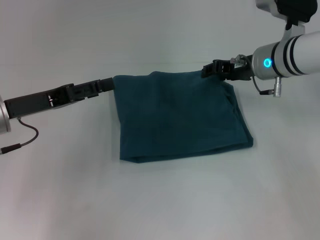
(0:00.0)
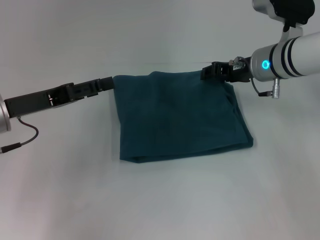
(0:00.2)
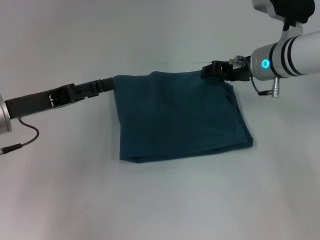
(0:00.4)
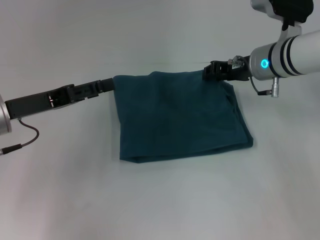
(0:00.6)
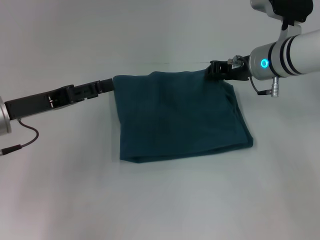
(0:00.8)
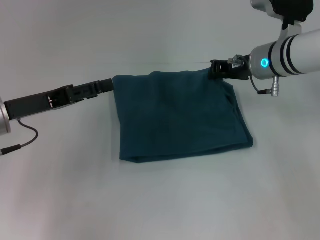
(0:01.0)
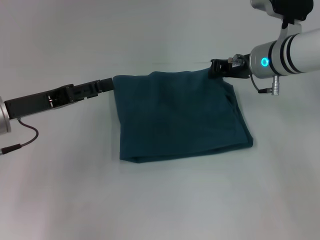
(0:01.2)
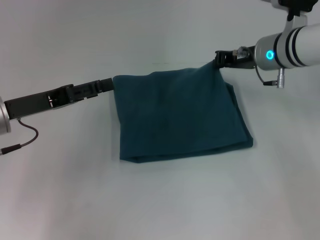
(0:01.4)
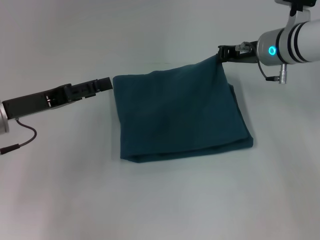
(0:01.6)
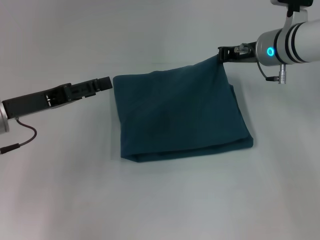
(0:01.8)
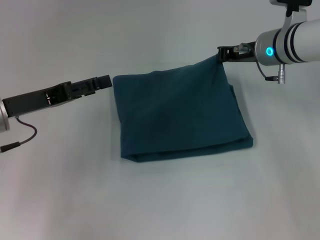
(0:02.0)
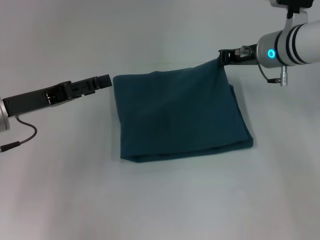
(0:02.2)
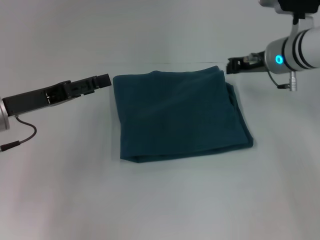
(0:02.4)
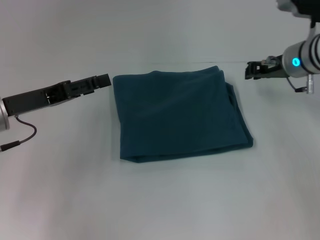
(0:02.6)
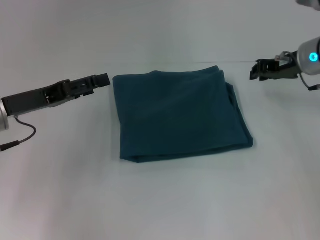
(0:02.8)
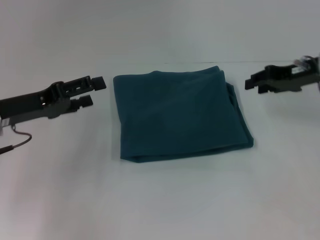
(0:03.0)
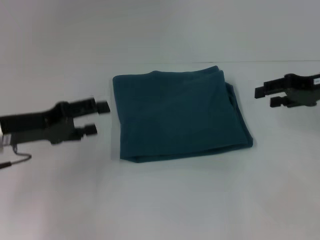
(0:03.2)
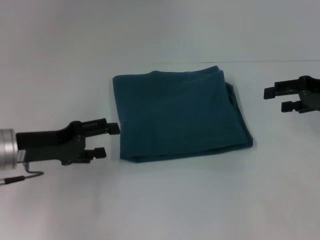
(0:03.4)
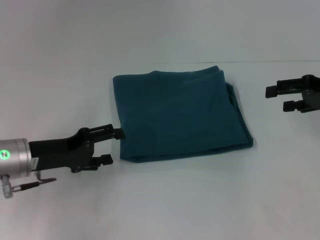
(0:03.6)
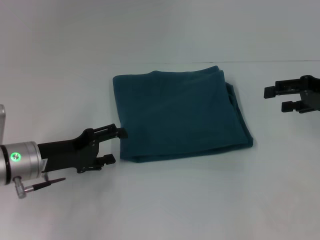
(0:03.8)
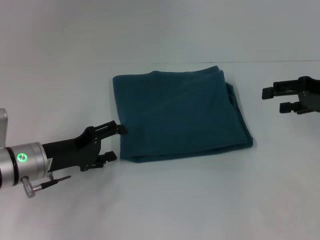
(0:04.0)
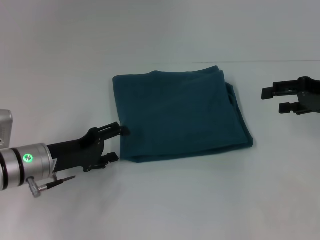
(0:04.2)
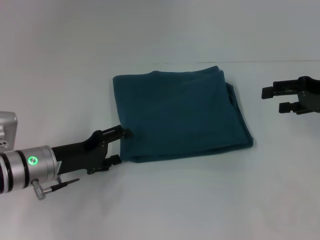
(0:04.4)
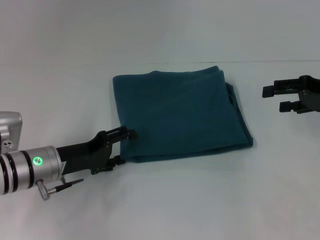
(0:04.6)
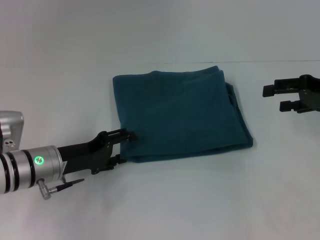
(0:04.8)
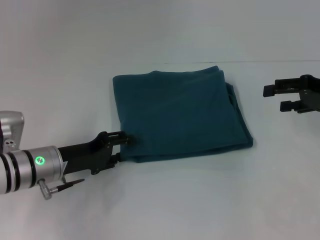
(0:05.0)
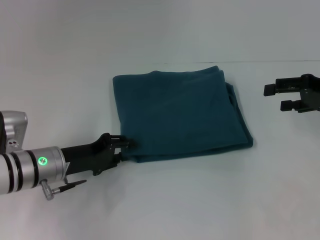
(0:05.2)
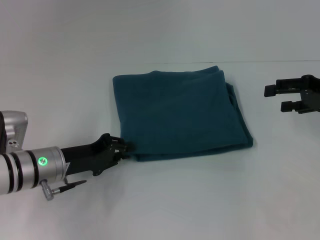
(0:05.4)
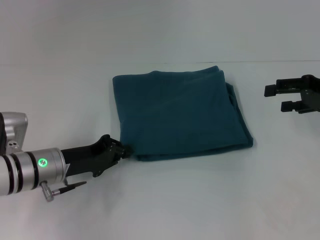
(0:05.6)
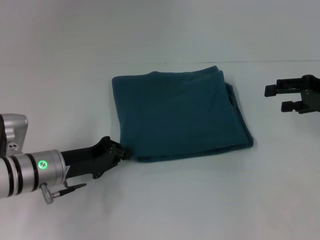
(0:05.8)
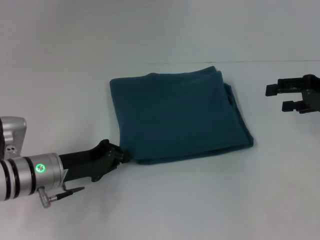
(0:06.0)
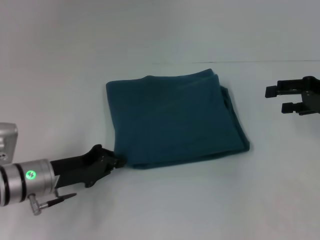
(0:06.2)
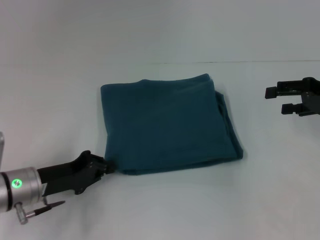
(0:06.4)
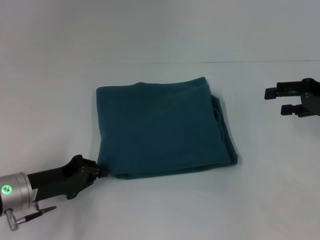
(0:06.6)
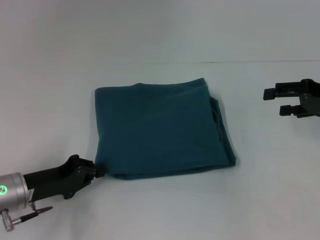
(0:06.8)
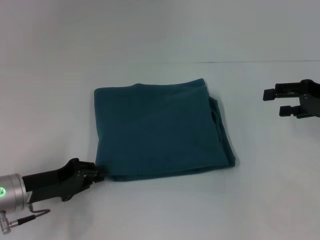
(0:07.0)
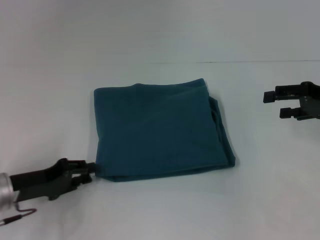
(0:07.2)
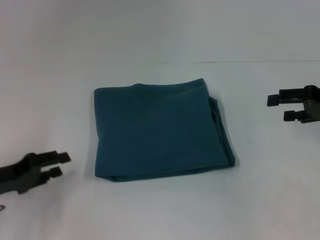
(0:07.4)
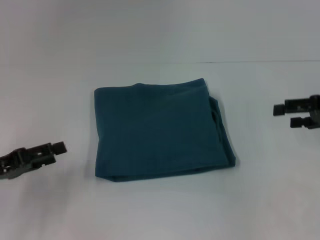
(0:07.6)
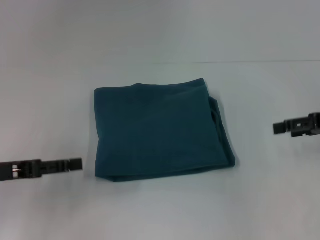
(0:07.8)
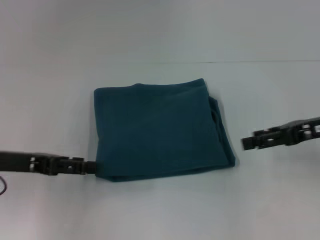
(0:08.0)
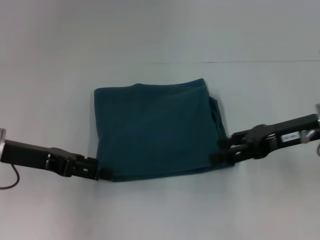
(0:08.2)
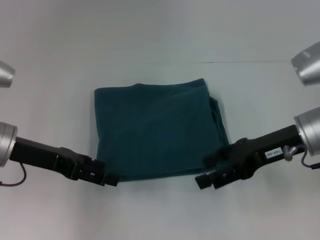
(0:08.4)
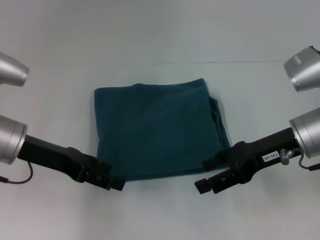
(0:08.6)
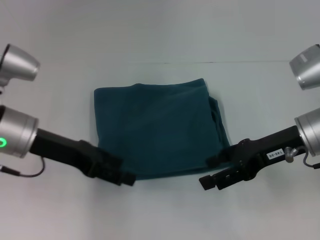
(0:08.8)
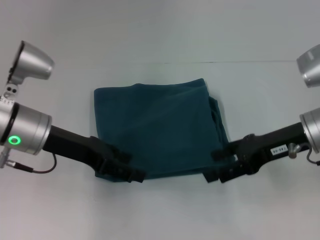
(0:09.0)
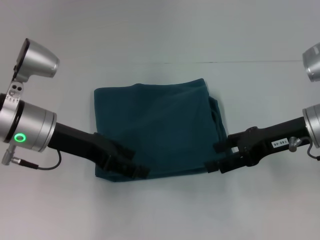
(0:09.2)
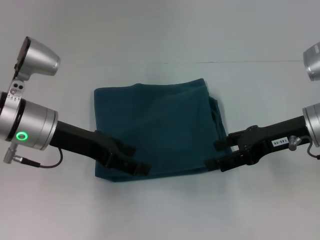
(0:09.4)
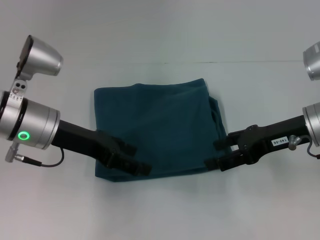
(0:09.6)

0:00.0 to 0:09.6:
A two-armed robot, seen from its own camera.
0:00.0 to 0:01.6: The right gripper closes up.
0:01.6 to 0:03.2: The right gripper moves to the right and backward, approximately 15 cm, and opens.
0:03.2 to 0:04.8: The left gripper heads downward and to the right, covering roughly 10 cm.
0:04.8 to 0:06.4: The left gripper closes.
0:06.4 to 0:08.0: The left gripper moves upward and to the left, roughly 10 cm, and opens.
0:08.0 to 0:09.6: The right gripper heads to the left, covering some 5 cm. The left gripper heads to the right and forward, covering about 10 cm.

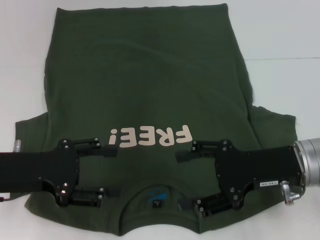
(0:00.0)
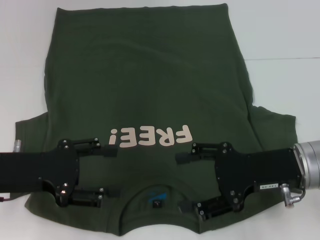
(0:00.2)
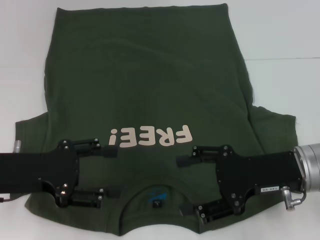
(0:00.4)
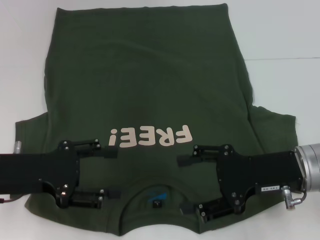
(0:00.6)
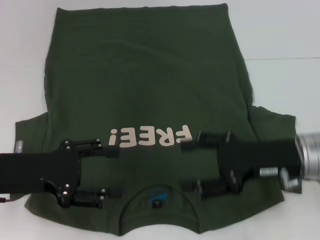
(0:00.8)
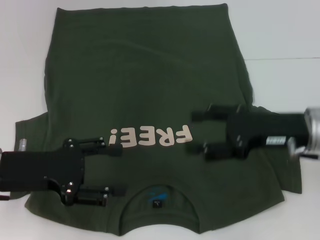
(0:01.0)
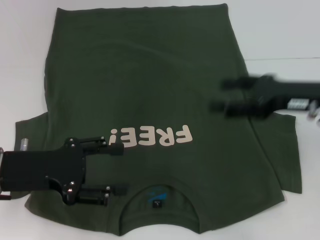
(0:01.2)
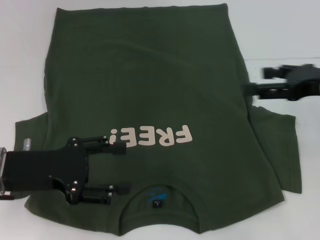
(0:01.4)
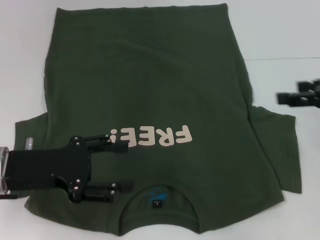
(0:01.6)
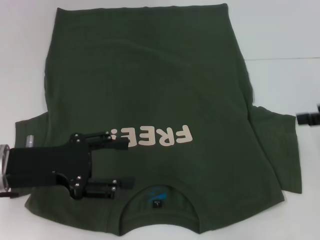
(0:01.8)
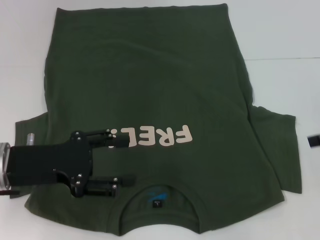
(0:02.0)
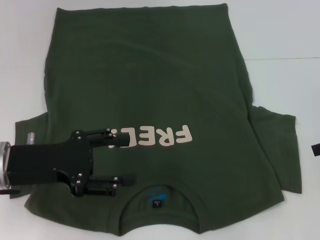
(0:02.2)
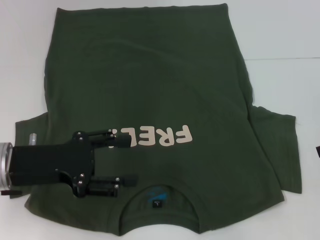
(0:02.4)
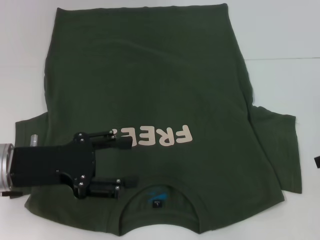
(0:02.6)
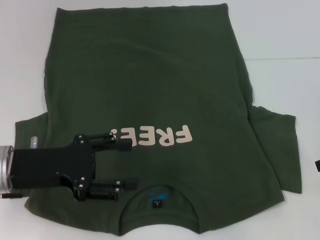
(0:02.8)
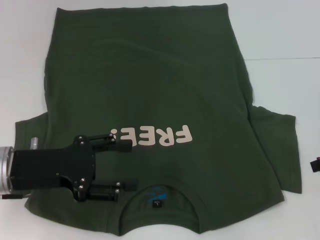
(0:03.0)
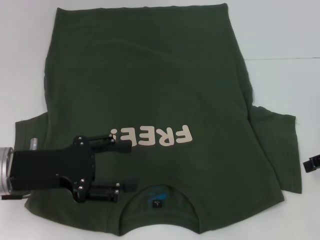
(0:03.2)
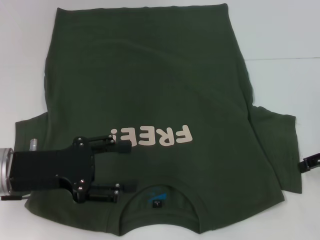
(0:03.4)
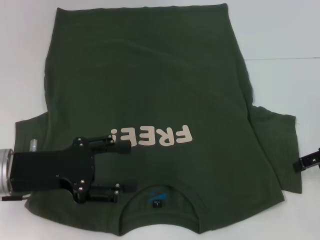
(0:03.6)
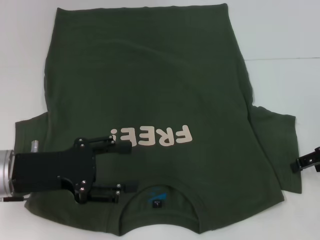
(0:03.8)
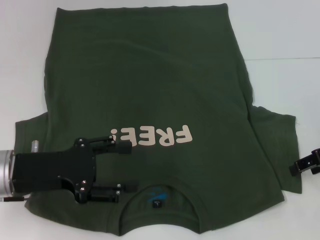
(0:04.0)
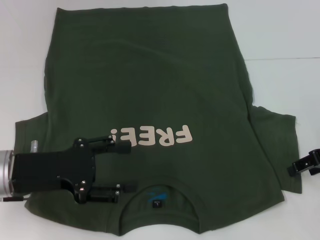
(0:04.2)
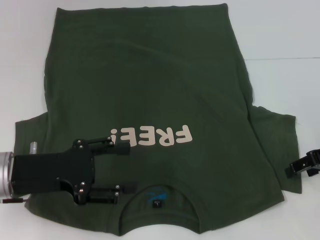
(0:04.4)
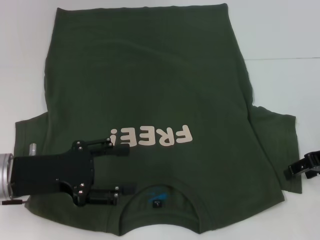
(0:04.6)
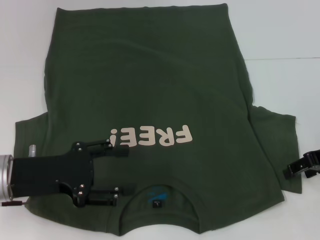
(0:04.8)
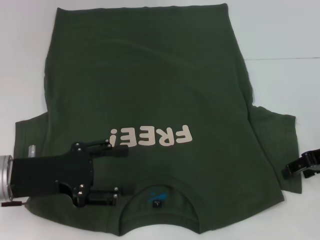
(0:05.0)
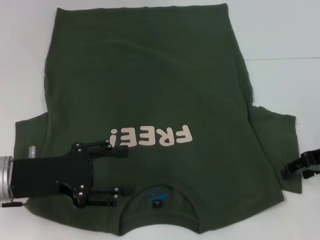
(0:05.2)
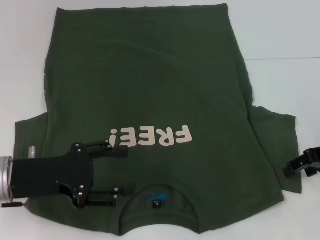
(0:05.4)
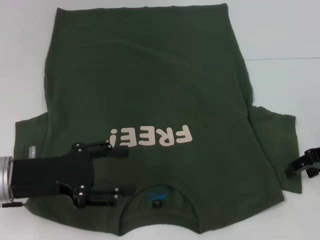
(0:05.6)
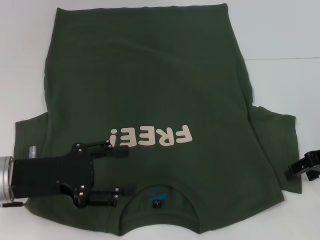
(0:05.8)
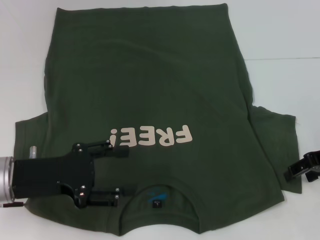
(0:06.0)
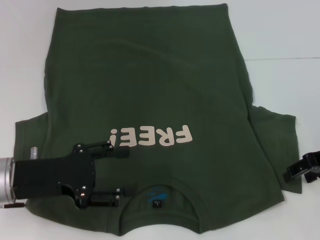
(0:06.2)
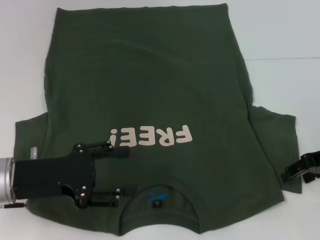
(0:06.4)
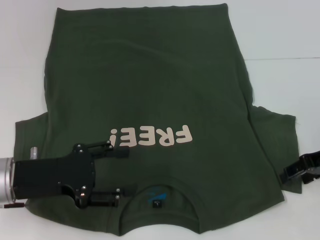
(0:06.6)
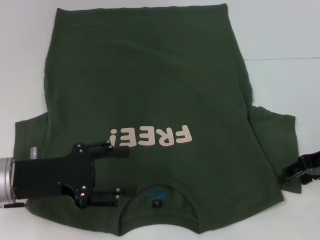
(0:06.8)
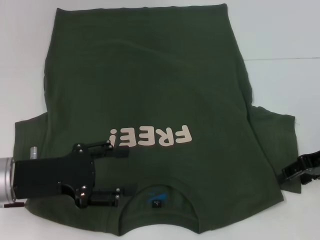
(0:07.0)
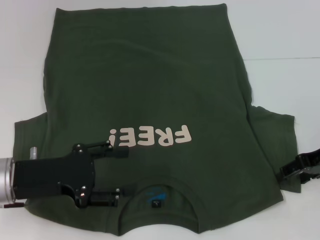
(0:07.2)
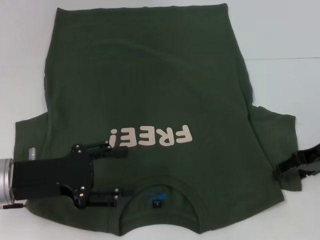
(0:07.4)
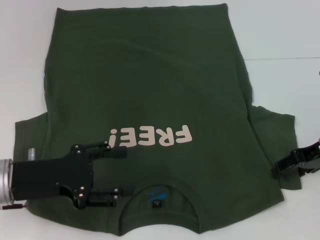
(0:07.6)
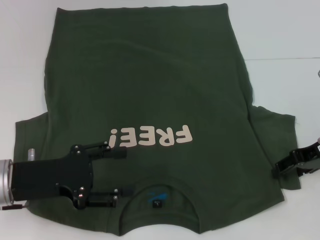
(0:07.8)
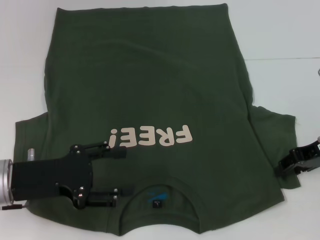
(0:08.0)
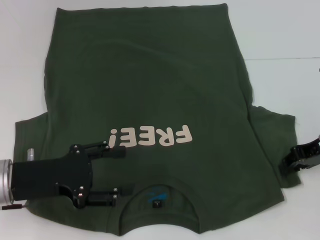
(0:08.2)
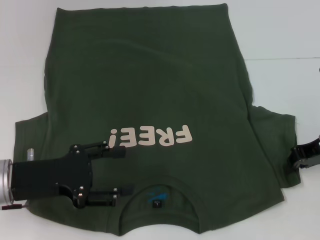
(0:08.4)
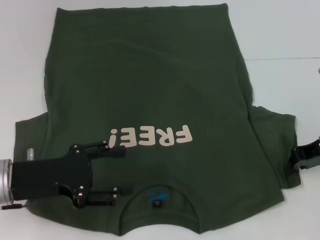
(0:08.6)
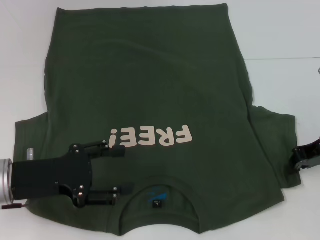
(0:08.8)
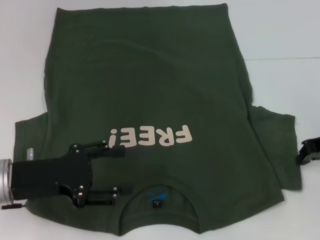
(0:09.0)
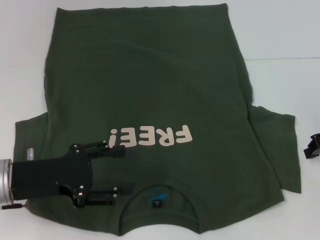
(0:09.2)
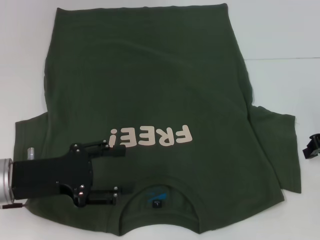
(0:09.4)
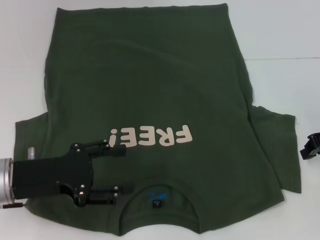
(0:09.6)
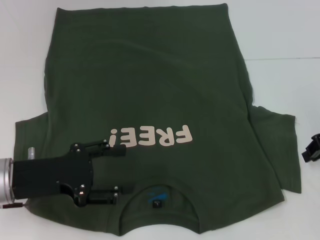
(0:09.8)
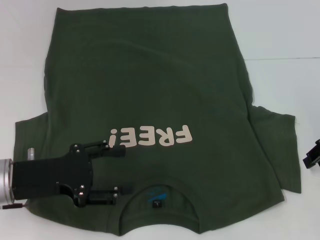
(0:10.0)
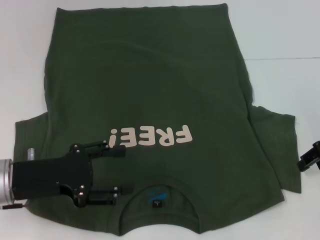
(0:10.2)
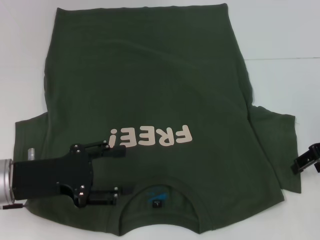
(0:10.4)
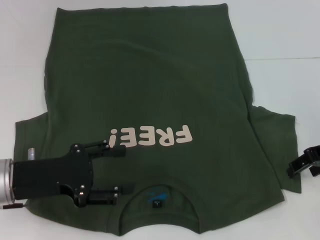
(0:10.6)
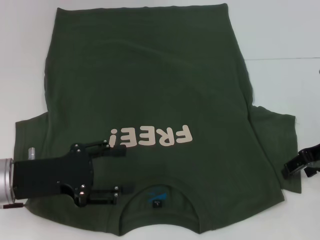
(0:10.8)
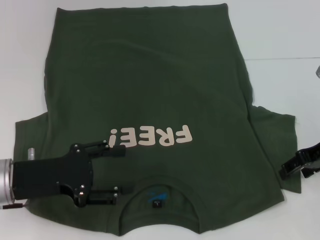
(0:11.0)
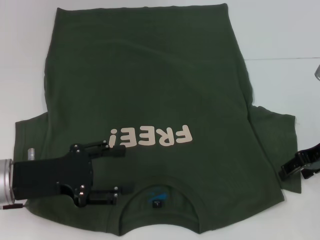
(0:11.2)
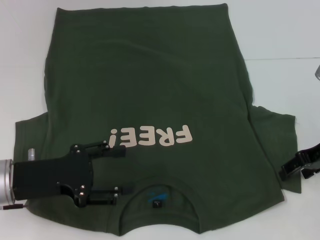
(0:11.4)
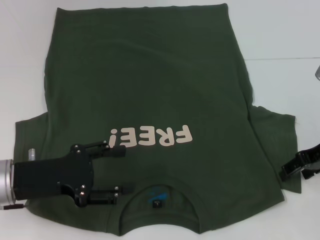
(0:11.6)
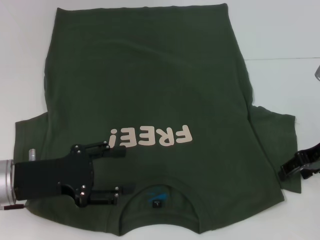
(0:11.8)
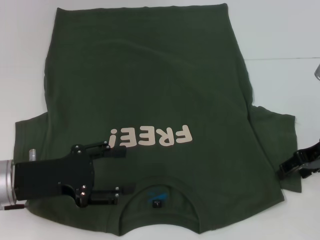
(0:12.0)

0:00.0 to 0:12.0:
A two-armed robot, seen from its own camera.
0:00.0 to 0:01.6: The right gripper heads to the right and upward, covering approximately 15 cm.
0:03.0 to 0:04.4: The right gripper moves approximately 5 cm.
0:04.4 to 0:06.0: Both grippers stay put.
0:06.0 to 0:07.6: The grippers make only small movements.
0:07.6 to 0:09.0: The right gripper closes.
0:09.0 to 0:10.4: The right gripper opens.
0:10.4 to 0:12.0: The grippers stay close to where they were, moving slightly.

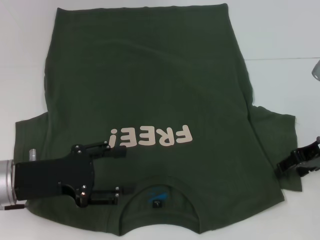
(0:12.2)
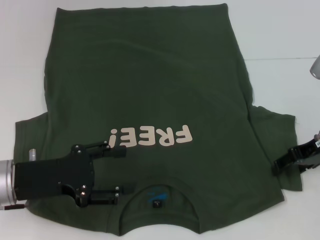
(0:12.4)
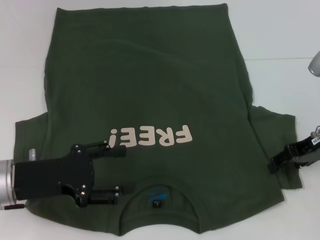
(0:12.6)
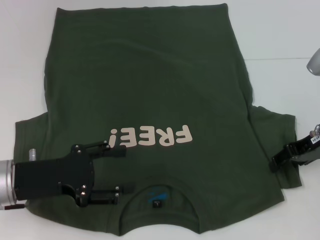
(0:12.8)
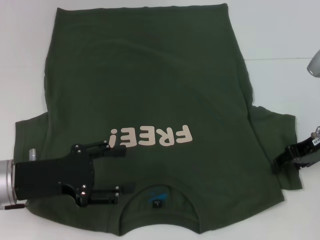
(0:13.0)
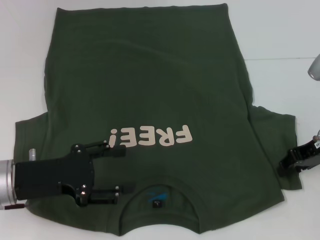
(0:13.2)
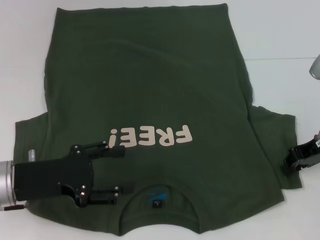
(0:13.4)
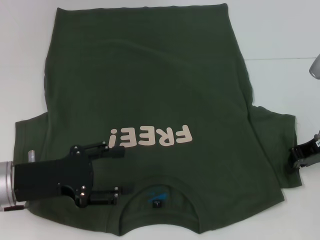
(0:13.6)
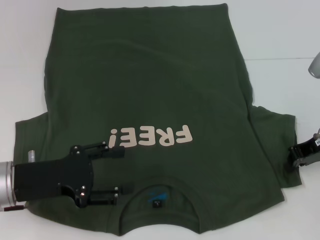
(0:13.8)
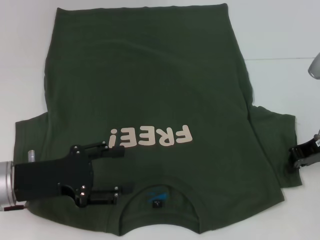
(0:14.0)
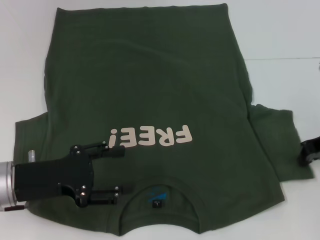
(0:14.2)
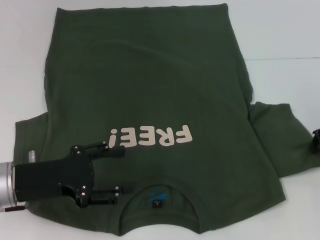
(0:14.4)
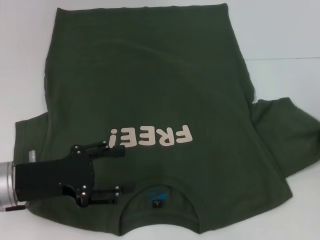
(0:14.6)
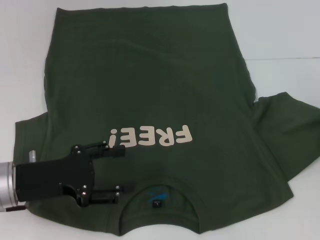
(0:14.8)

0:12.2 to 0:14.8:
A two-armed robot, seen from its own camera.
0:12.2 to 0:13.4: Both grippers stay about where they are.
0:13.4 to 0:14.8: The right gripper ends up some 5 cm from where it was, and closes.
